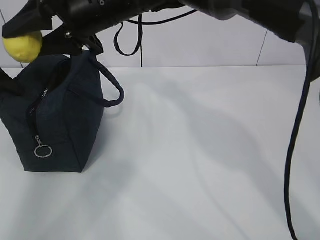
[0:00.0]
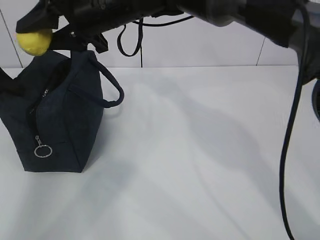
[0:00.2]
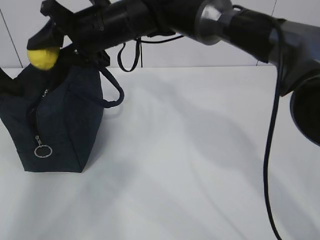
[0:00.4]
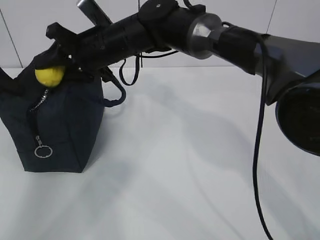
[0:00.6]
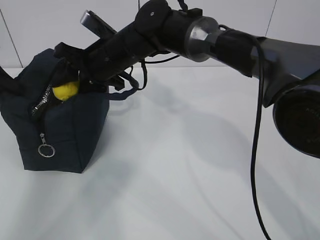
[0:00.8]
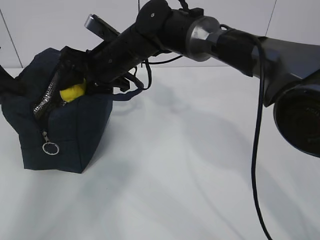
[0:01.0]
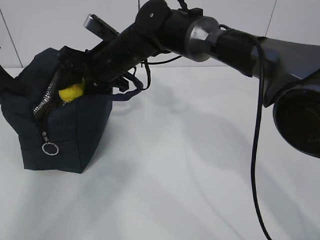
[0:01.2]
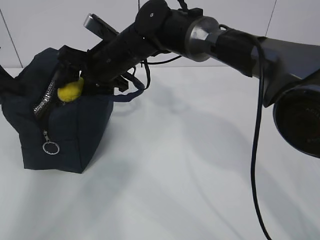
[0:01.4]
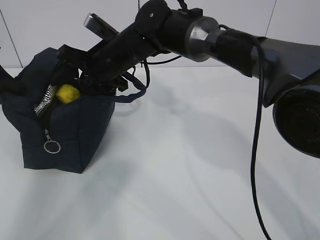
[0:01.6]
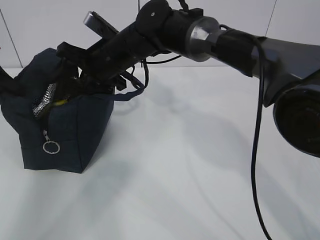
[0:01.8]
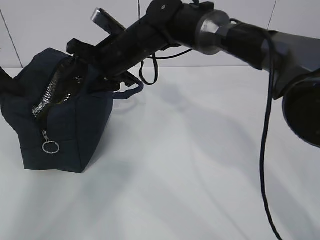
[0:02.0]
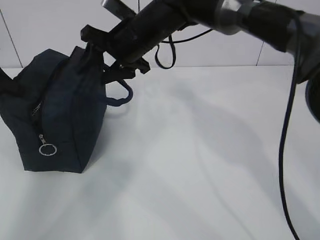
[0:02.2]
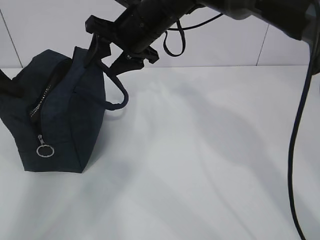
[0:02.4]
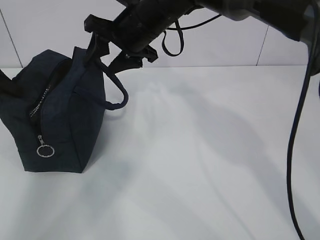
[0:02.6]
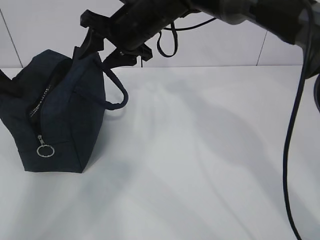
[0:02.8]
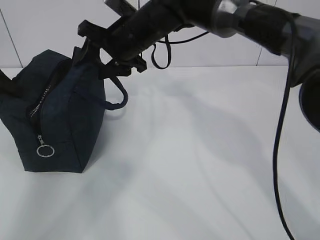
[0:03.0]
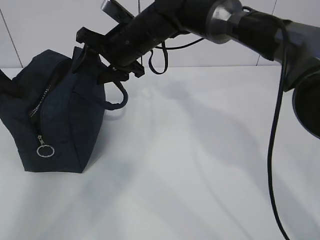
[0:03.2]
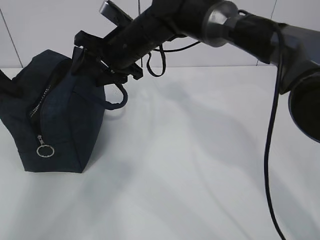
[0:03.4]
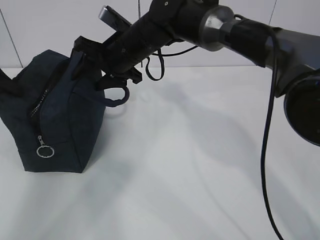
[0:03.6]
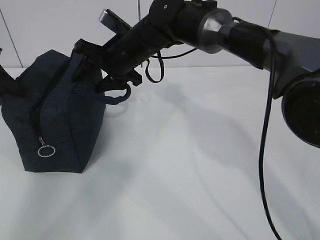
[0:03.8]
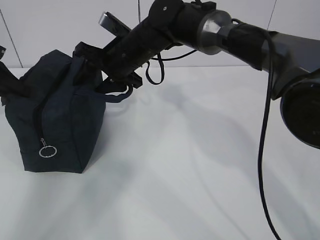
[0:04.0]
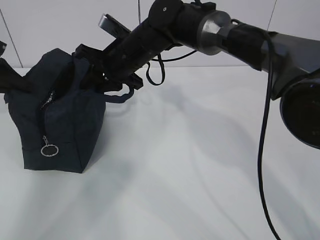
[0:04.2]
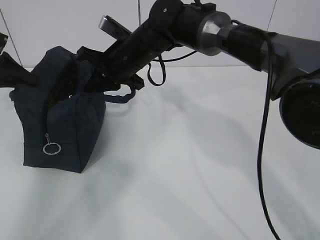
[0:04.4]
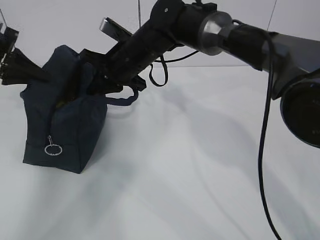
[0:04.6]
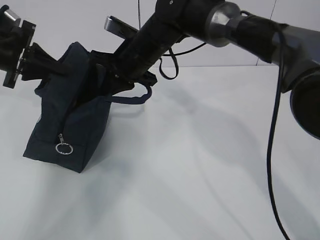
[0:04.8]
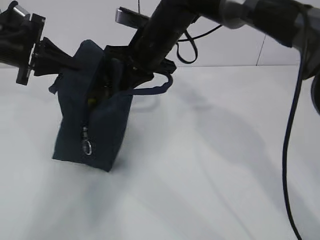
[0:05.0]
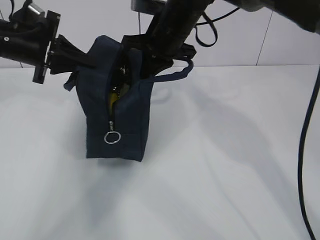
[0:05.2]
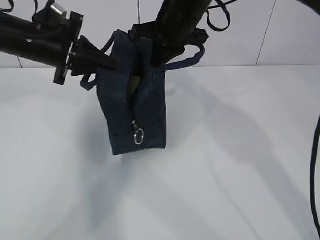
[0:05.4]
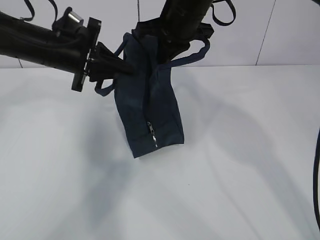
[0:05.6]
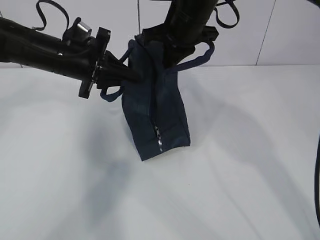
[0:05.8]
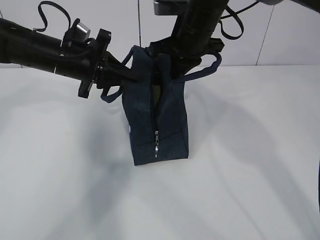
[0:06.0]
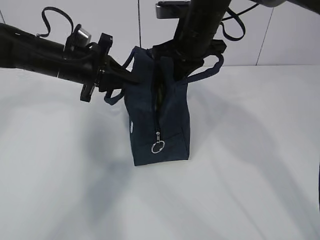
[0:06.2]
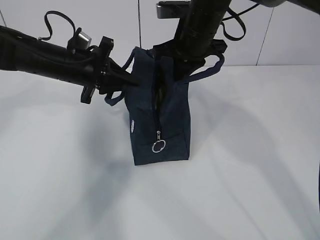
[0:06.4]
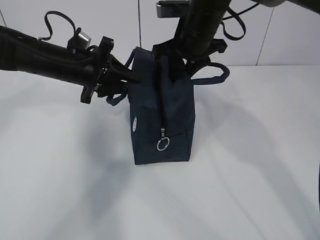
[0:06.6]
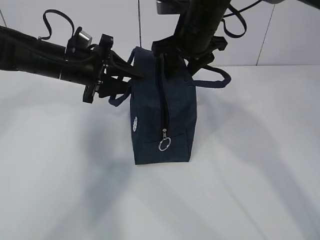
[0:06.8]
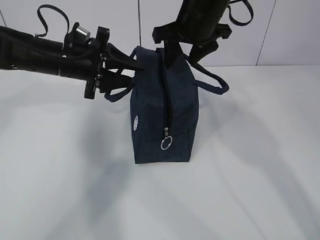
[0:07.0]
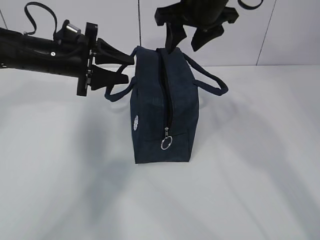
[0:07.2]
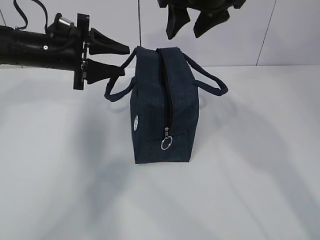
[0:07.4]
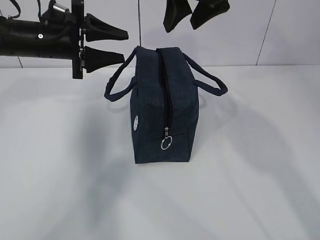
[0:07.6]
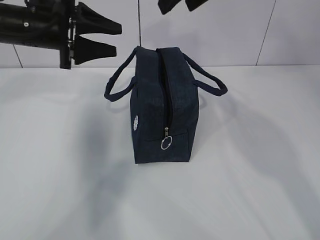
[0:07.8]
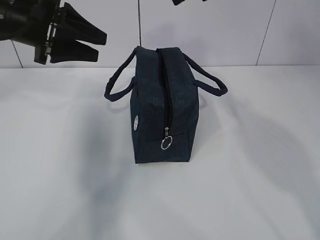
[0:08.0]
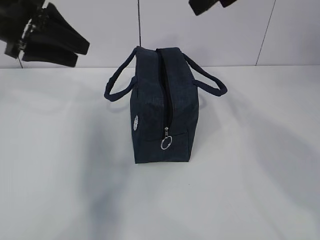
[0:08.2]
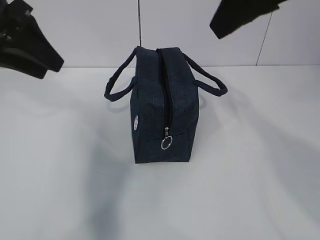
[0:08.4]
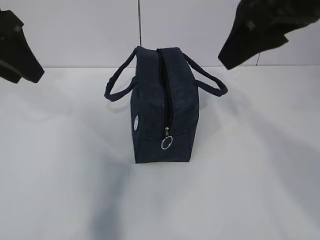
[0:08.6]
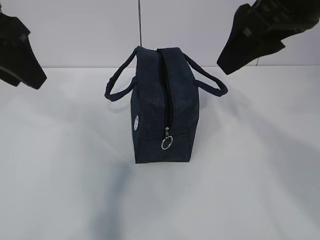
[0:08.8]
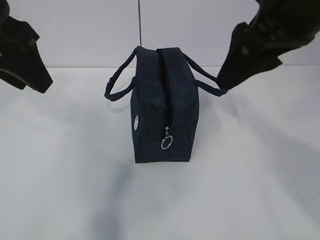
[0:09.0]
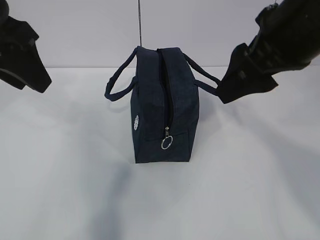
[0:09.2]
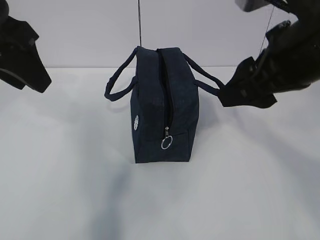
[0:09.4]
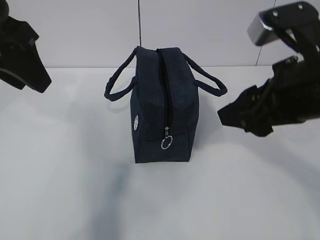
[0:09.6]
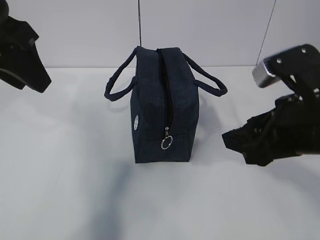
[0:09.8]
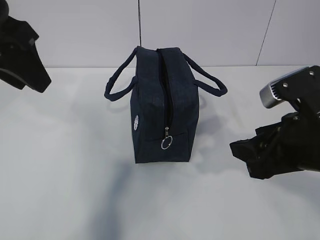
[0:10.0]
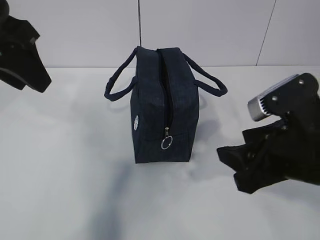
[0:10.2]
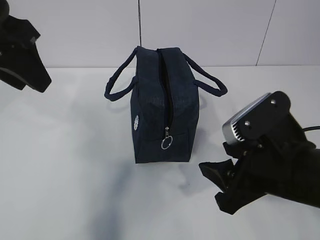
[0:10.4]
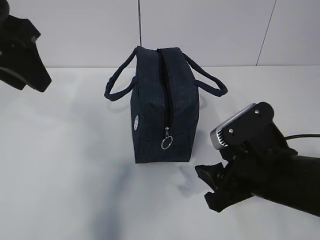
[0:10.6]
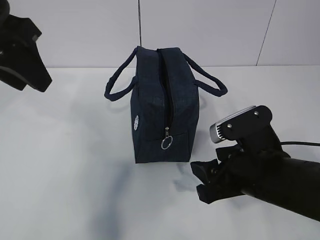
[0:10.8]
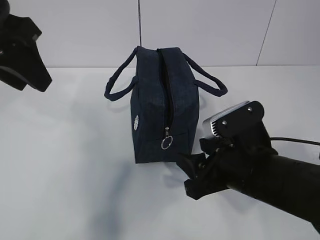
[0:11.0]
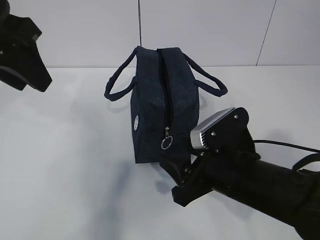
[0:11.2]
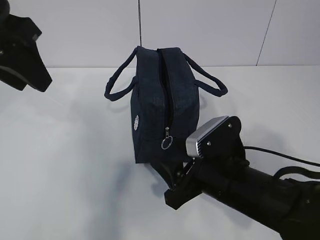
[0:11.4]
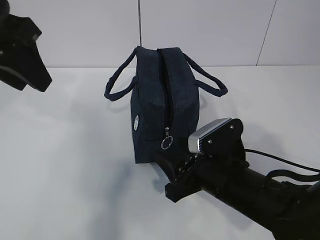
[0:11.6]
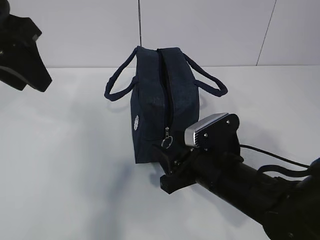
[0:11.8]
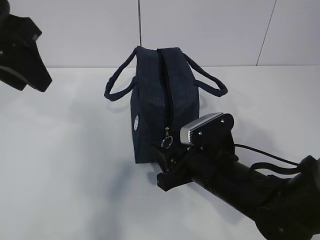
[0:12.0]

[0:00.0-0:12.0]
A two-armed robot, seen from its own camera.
0:00.0 to 0:01.6: The right gripper is displaced downward by about 10 cm, and opens its fingers.
0:01.6 to 0:03.0: The right gripper ends up about 5 cm from where it was.
0:03.0 to 0:04.4: The right gripper closes up.
0:04.4 to 0:06.0: The left gripper goes approximately 20 cm to the right. The right gripper travels to the right and upward by approximately 10 cm.
0:06.0 to 0:07.6: The right gripper travels upward by some 10 cm, and opens up. Meanwhile the left gripper opens up.
0:07.6 to 0:09.0: The right gripper shifts some 15 cm backward. Meanwhile the left gripper goes approximately 20 cm backward and upward.
0:09.0 to 0:10.4: The right gripper heads downward and backward, covering approximately 20 cm.
0:10.4 to 0:12.0: The right gripper goes approximately 10 cm downward, forward and to the left.

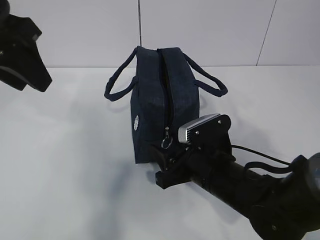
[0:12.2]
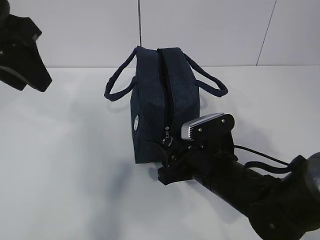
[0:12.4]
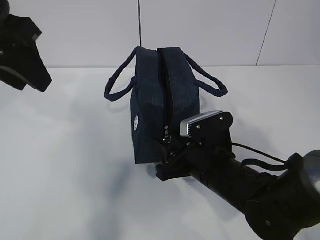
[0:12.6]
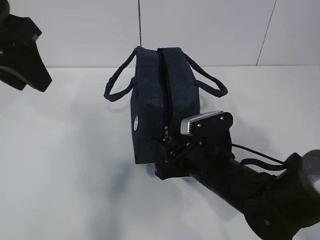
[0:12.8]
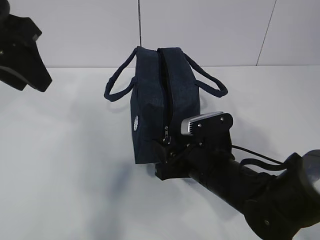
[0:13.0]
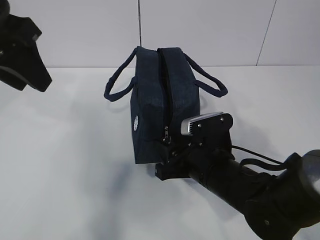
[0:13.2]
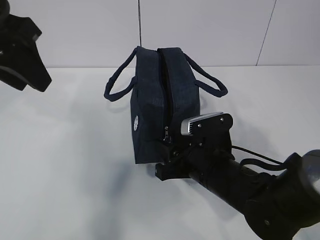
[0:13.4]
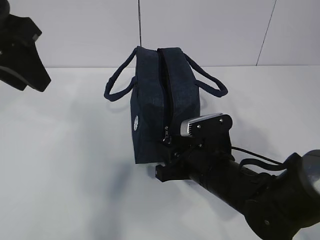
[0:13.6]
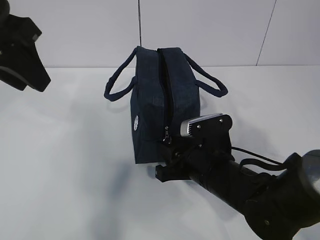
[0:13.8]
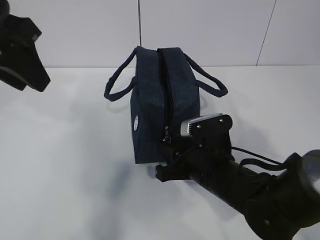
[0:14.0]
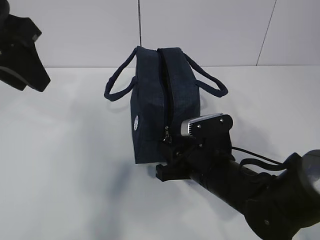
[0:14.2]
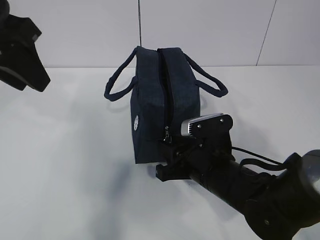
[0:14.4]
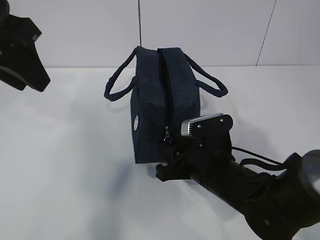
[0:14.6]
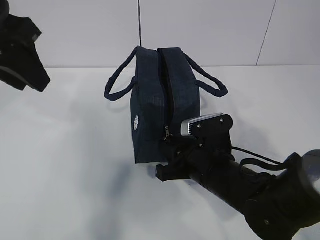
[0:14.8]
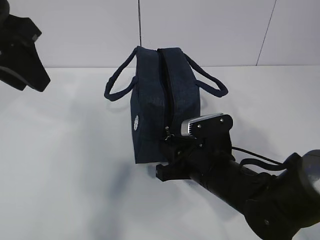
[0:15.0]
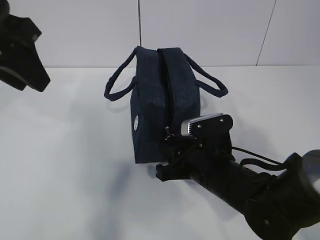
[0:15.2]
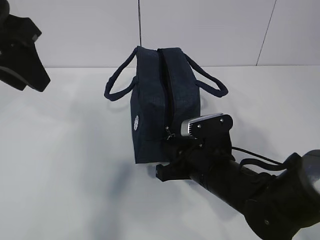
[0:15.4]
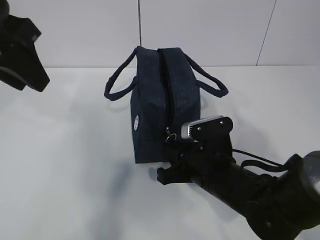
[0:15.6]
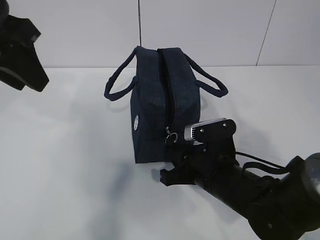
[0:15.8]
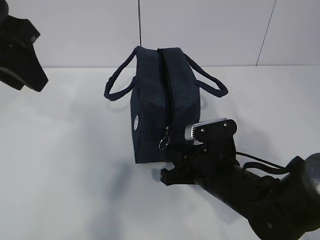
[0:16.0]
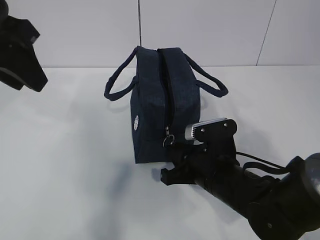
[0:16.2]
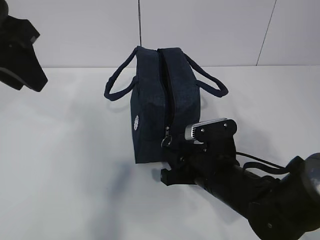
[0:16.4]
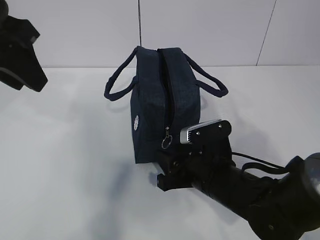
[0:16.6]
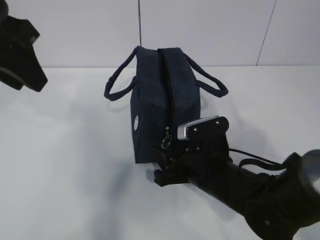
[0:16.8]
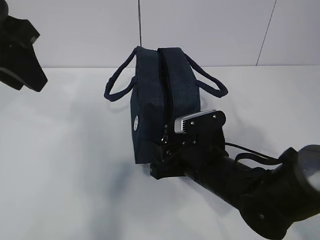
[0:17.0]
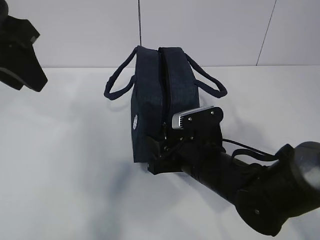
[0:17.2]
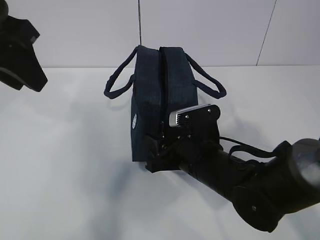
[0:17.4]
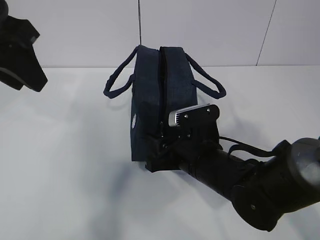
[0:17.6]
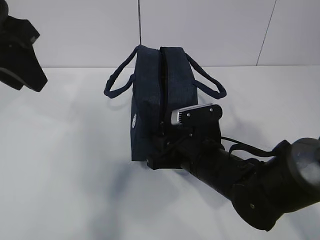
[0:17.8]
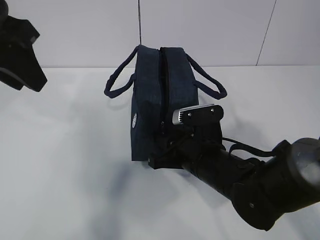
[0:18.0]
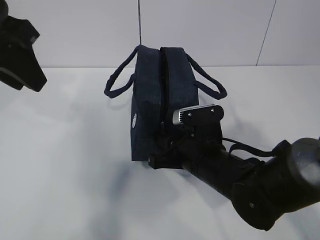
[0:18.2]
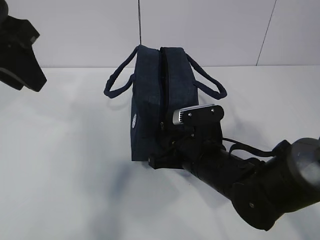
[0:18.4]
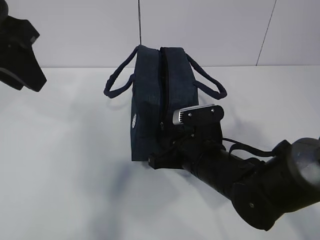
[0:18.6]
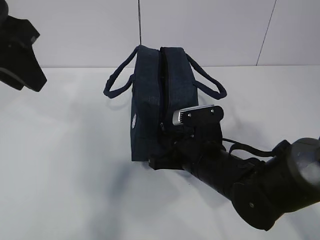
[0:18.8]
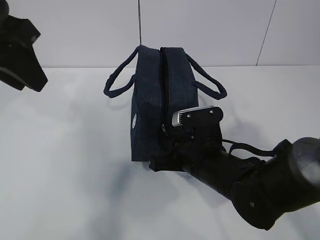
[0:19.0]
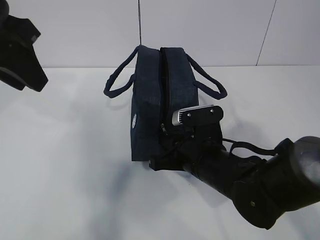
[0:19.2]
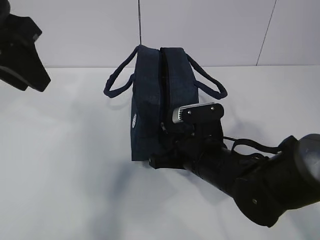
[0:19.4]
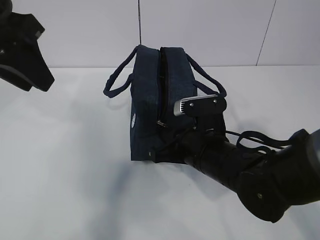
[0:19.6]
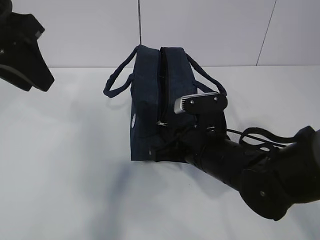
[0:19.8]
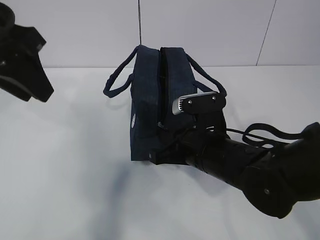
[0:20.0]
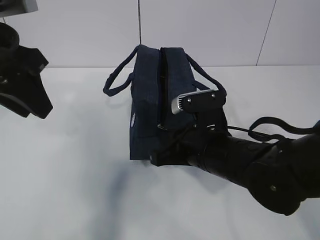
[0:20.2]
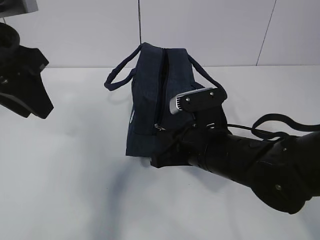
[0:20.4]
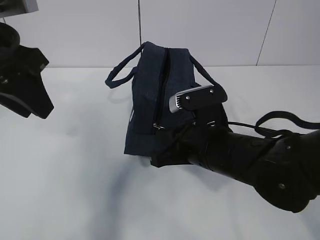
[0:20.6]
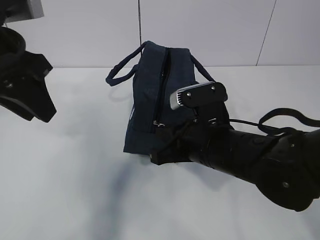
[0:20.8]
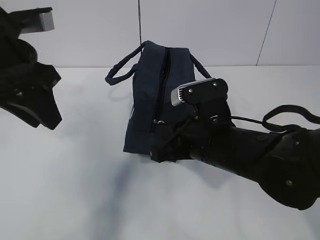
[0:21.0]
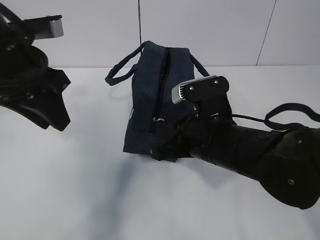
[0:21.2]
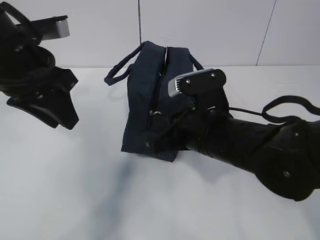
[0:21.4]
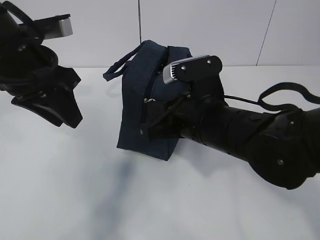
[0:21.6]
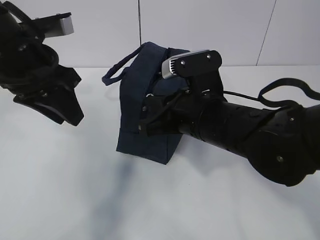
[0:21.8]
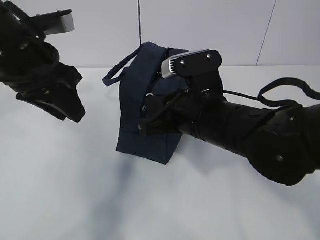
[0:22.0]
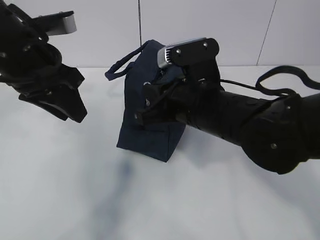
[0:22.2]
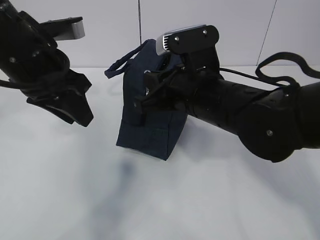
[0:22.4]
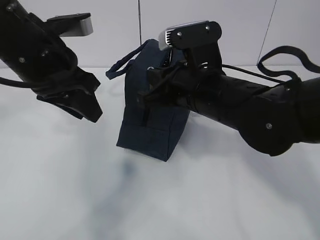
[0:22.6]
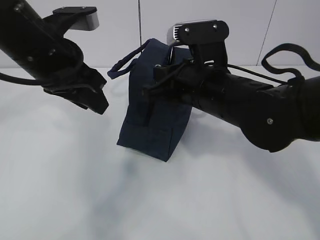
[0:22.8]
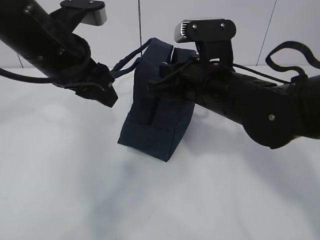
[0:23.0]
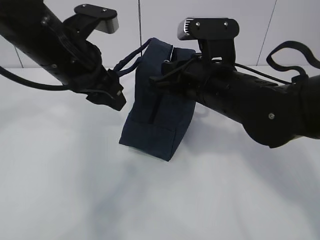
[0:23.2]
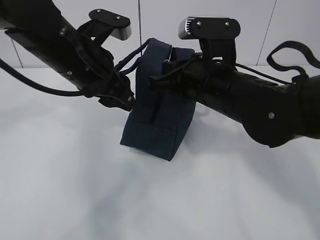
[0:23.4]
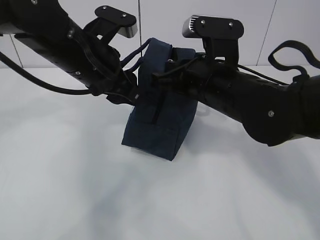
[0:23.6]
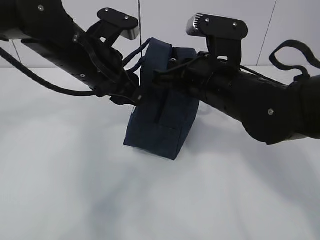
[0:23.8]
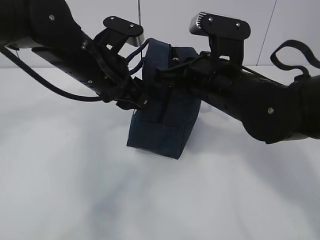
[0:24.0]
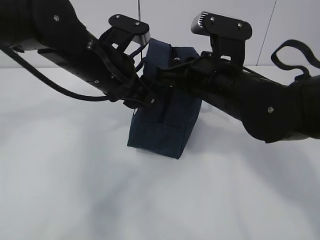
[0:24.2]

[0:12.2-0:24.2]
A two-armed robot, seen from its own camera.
Step, 0:15.4 to 0:19.6: Pull the zipper with your right hand.
Step, 0:19.8 to 0:20.2: Grab the lunch bag with your left hand.
0:12.2 to 0:13.8: There are only small adjustments of the grippers.
0:13.8 to 0:16.6: The two grippers keep their place.
0:16.6 to 0:18.2: The grippers move only a little.
0:18.2 to 0:19.8: The right gripper closes.
0:19.8 to 0:21.2: The left gripper heads downward, covering some 5 cm.
0:21.2 to 0:22.6: The right gripper heads upward, covering roughly 5 cm.
0:22.6 to 0:24.2: The left gripper goes approximately 5 cm to the right.
